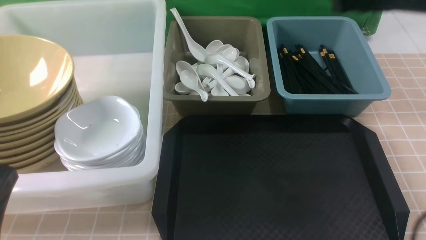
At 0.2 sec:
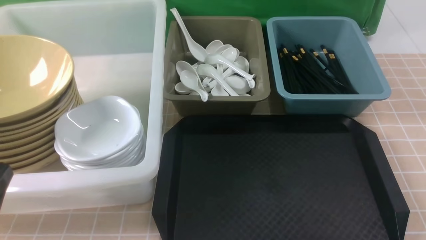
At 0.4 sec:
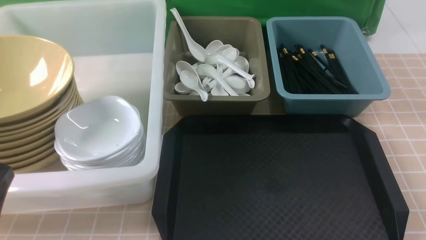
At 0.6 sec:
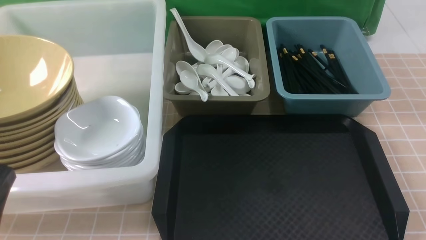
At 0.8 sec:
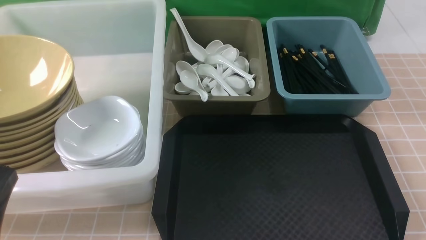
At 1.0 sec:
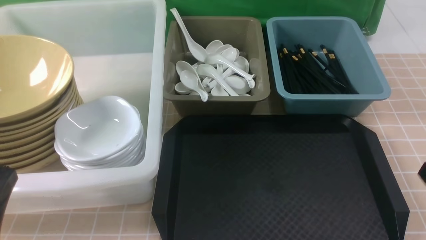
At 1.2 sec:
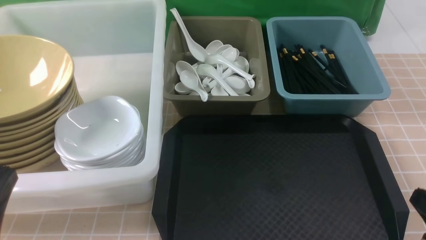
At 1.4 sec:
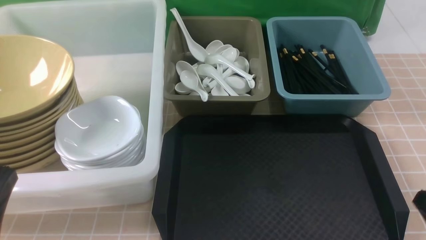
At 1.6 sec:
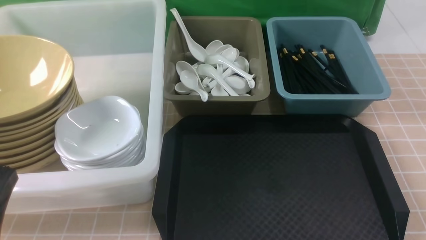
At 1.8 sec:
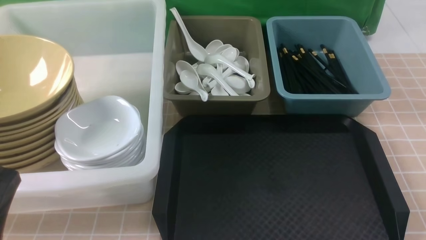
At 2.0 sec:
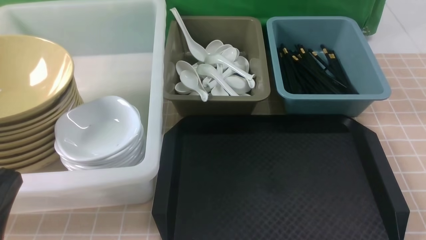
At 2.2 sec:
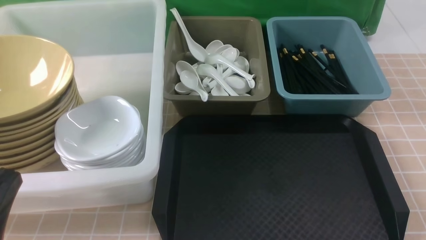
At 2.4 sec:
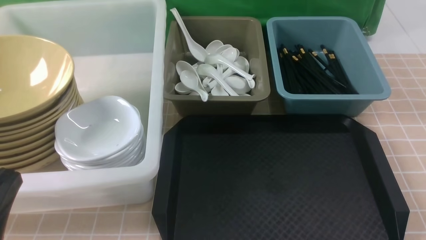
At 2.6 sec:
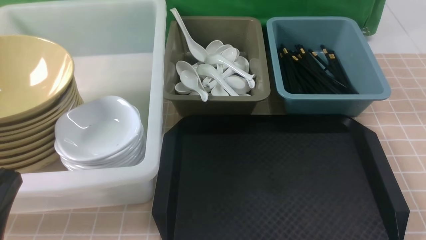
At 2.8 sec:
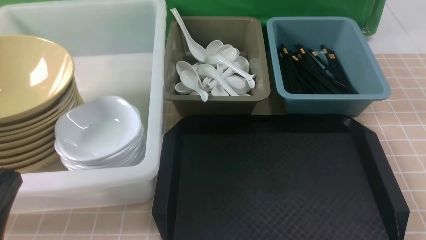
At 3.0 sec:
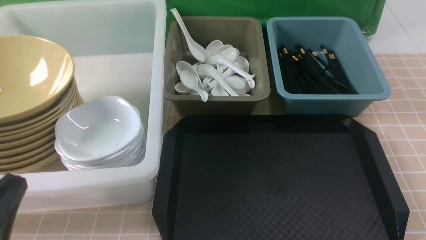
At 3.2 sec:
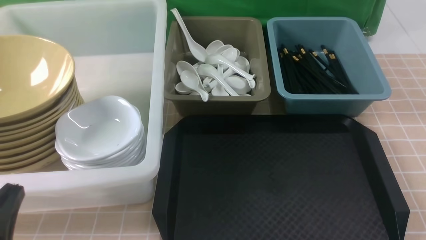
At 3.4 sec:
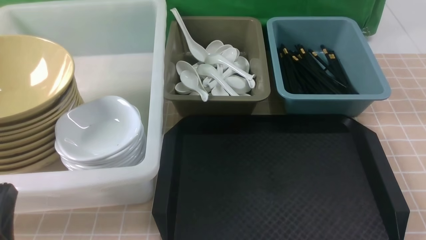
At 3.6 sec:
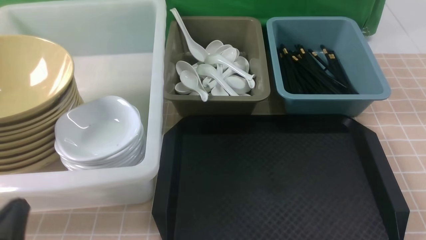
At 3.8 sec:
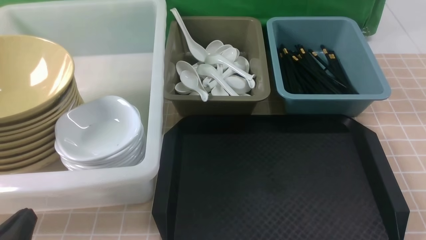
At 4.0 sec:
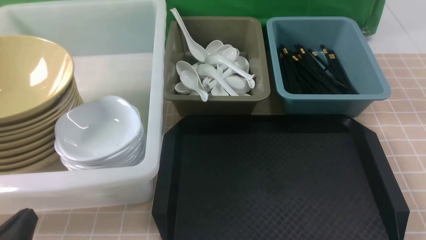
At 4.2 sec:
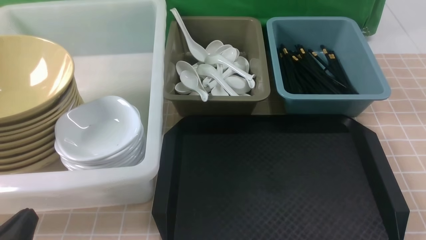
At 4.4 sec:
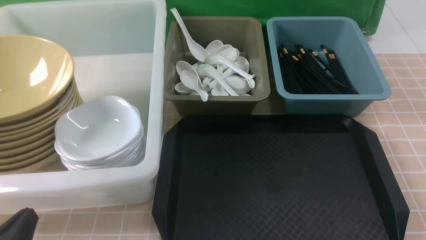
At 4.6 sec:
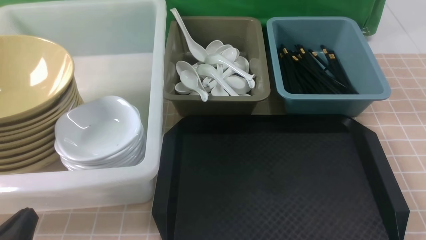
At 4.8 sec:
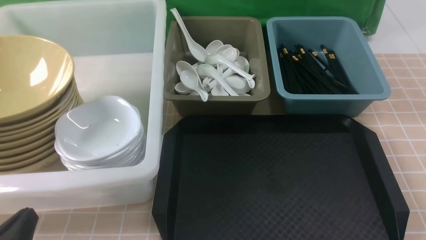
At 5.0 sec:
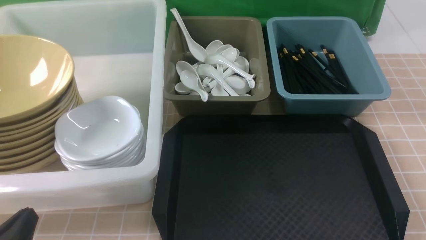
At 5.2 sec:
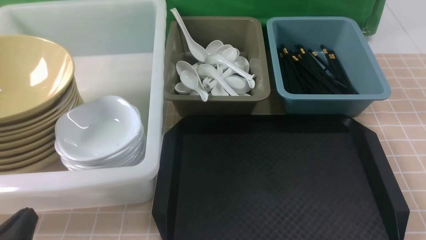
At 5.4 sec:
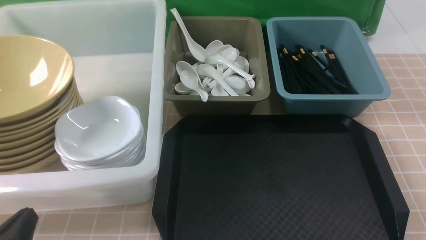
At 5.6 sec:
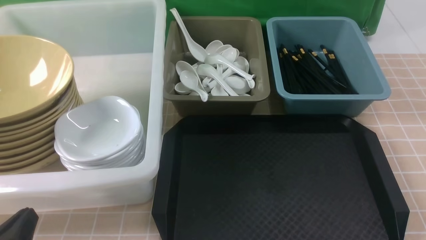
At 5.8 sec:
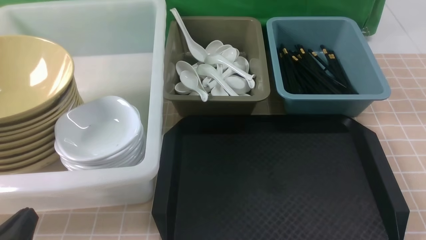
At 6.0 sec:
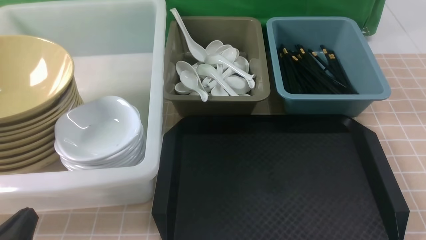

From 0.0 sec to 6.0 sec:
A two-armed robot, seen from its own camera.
Task of the whole recording: on brown table put chopsticks spoon bowls plates into blue grey white boxes.
From 0.0 sec to 1.6 sec: The right gripper goes some 30 cm backward and downward.
From 1.6 sec to 3.0 sec: The grippers stay close to where they were, moving slightly.
From 3.0 sec to 4.4 sec: The left gripper is displaced downward by about 5 cm.
From 4.4 sec to 6.0 sec: Both grippers stay about where they are.
